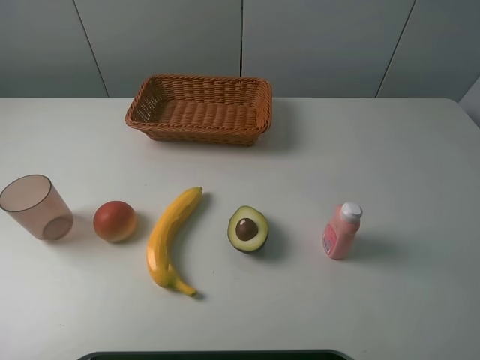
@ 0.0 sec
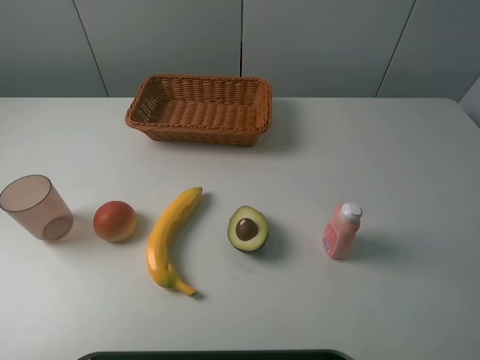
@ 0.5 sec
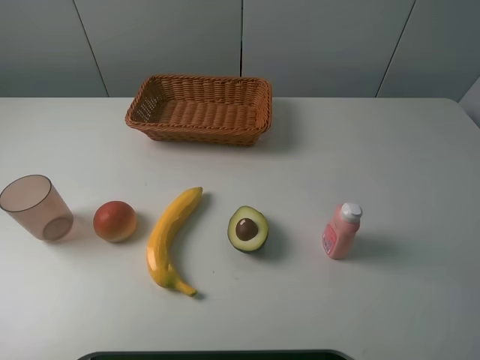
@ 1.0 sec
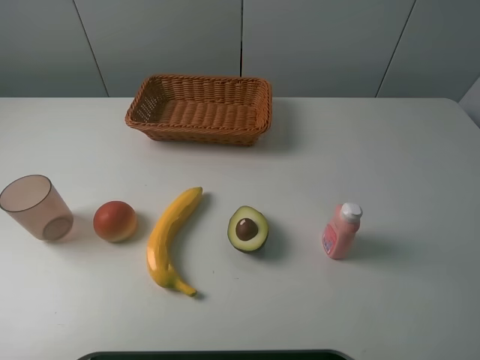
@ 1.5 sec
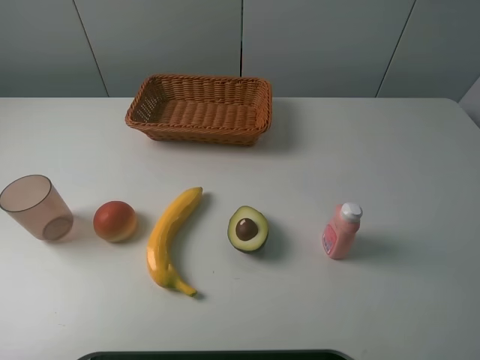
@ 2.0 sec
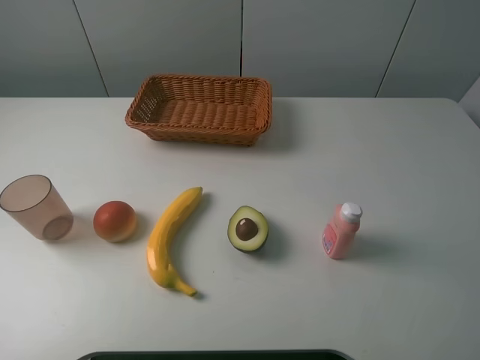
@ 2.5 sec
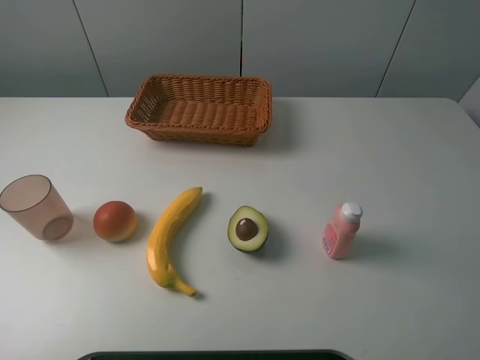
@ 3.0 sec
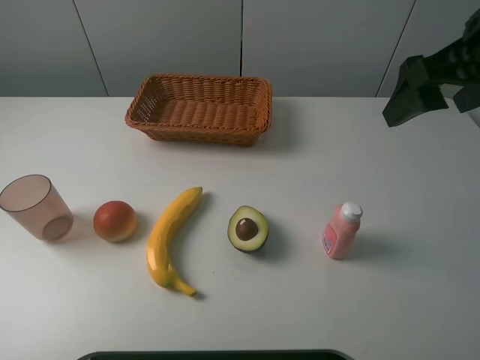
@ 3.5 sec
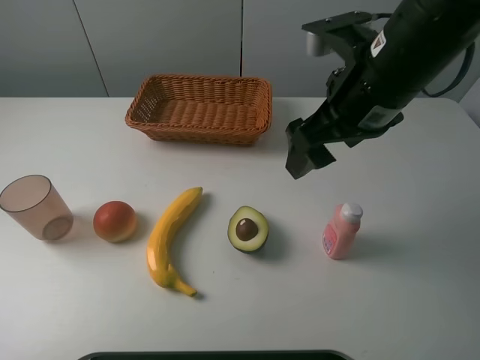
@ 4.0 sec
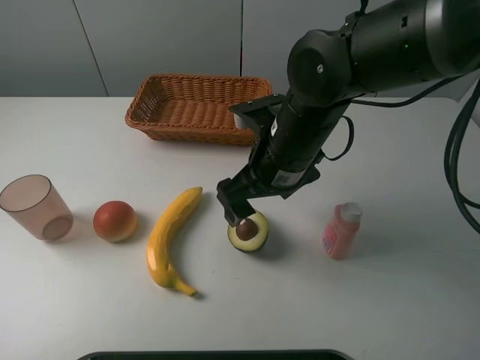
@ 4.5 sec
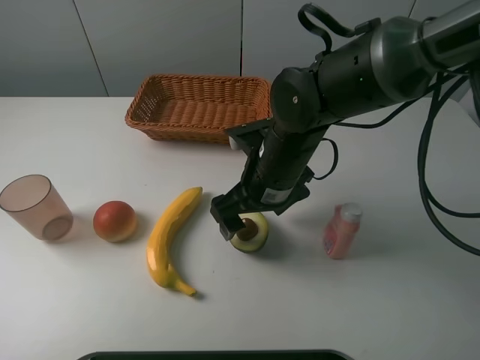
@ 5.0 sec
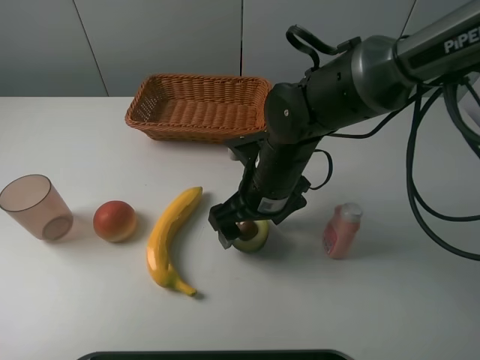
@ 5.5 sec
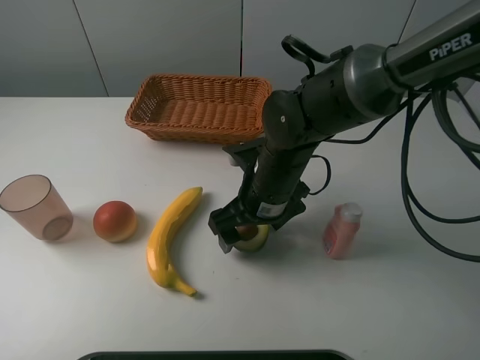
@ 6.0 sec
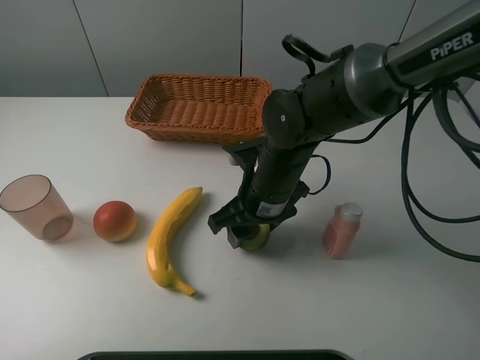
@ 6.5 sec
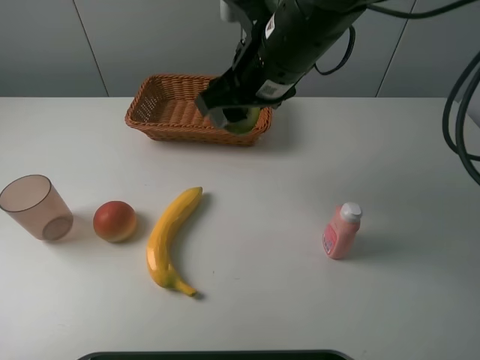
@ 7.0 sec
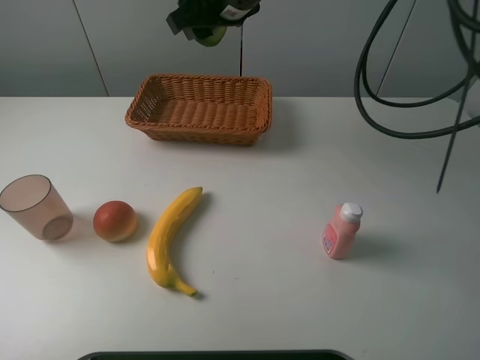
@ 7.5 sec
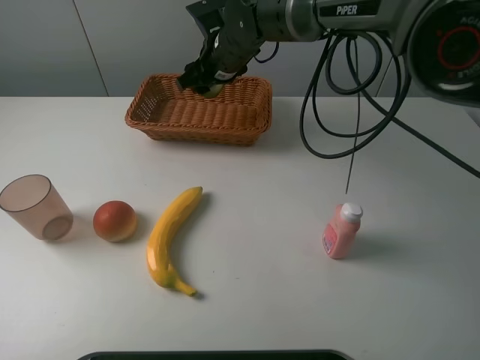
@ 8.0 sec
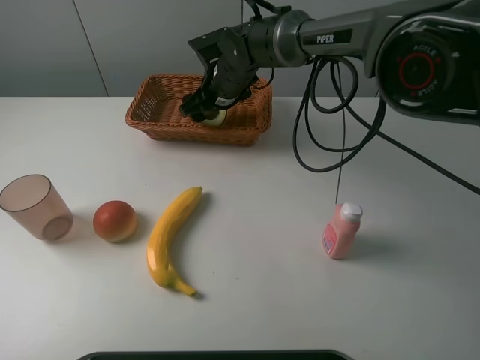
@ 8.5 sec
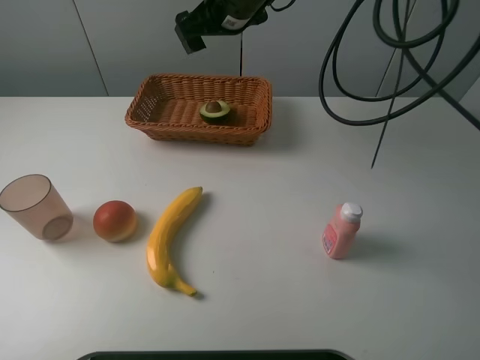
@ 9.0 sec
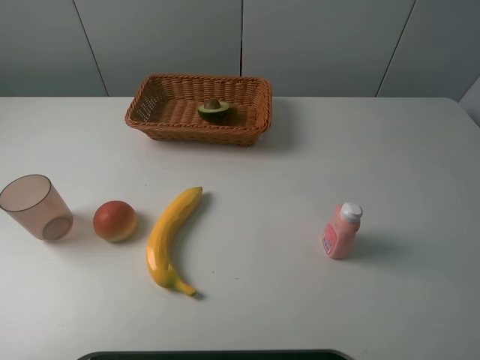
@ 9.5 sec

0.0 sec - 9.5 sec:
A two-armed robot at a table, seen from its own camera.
Task of the whole recording: randomly pick up an item from the table and put it in the basket.
Step, 0.0 sec - 6.0 sec: Grasp the avocado with the right gripper.
Step, 6.5 sec - 8.5 sec: Place the avocado into the basket with the right gripper.
0.0 sec - 2.0 sec: Both grippers stay put.
2.0 sec - 4.0 sec: The right gripper moves forward and to the left, about 30 cm.
4.0 sec - 5.5 sec: The right gripper is displaced downward and to the left by approximately 15 cm.
5.5 sec - 7.5 sec: The right gripper travels upward and forward by roughly 20 cm, and closes.
7.5 sec - 9.5 sec: The right gripper shifts approximately 25 cm upward and to the right, and opens its fingers.

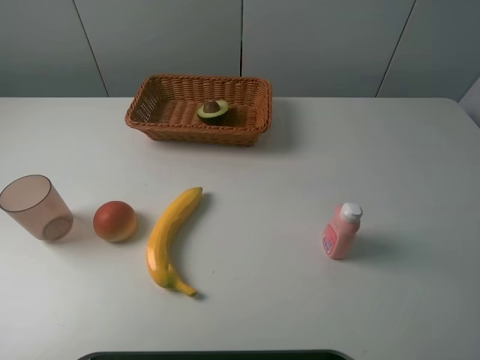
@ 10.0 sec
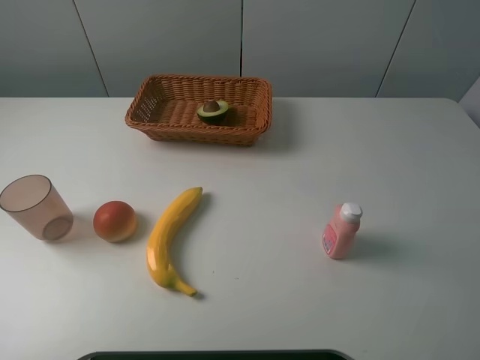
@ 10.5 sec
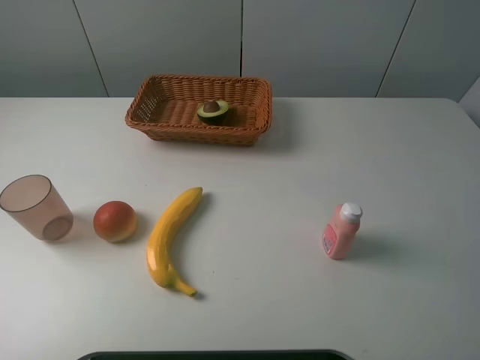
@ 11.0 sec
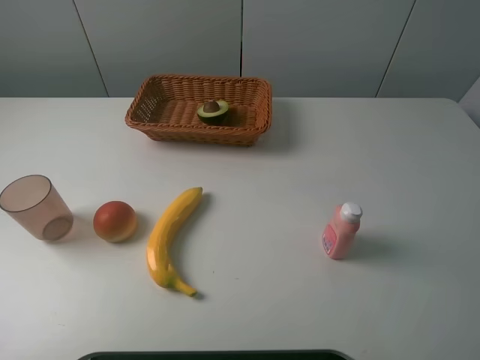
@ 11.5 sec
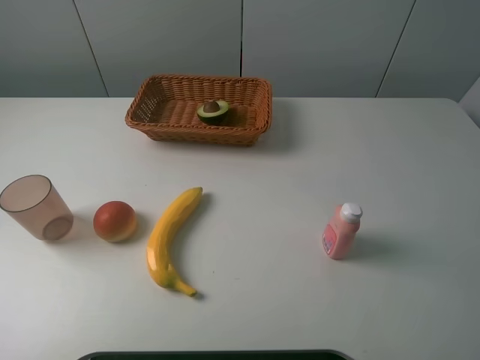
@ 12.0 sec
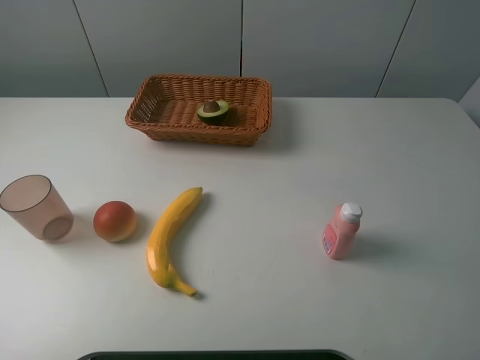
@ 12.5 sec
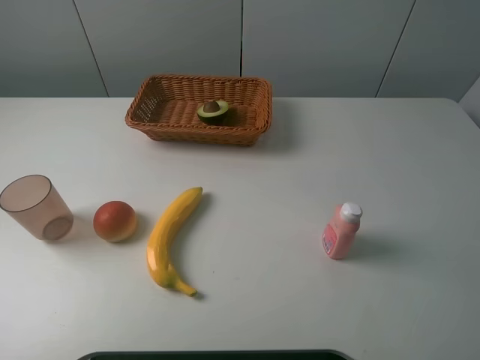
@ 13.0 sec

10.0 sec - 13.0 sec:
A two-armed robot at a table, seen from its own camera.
Task of the whole recording: randomly pick up an item from the table and put it in the basket.
11.5 sec - 13.0 sec: Both grippers stay about where they are.

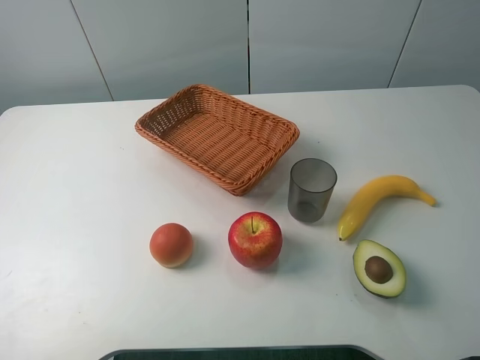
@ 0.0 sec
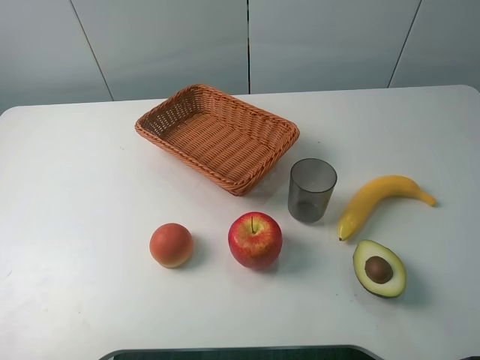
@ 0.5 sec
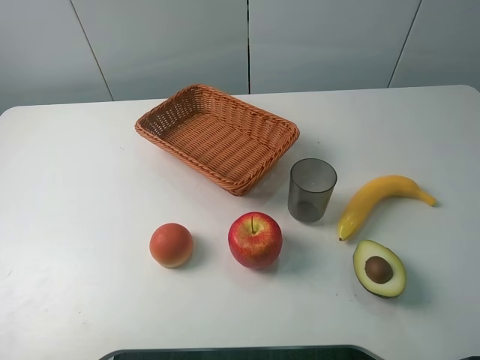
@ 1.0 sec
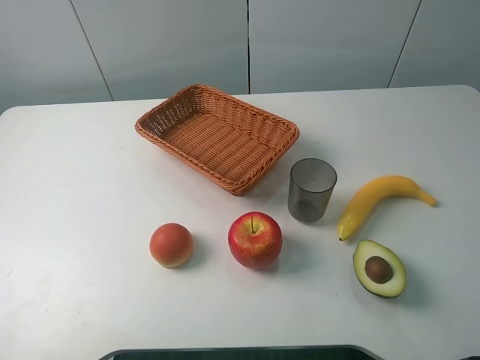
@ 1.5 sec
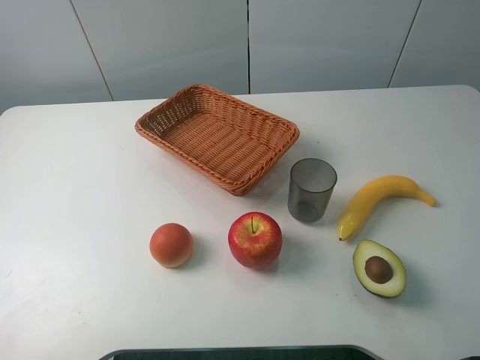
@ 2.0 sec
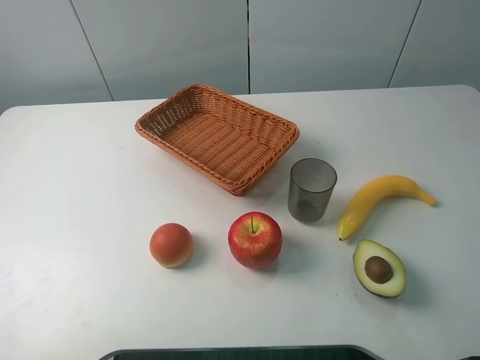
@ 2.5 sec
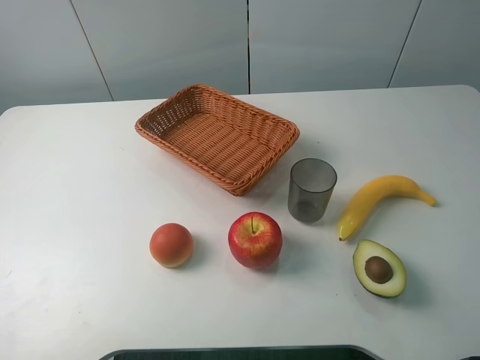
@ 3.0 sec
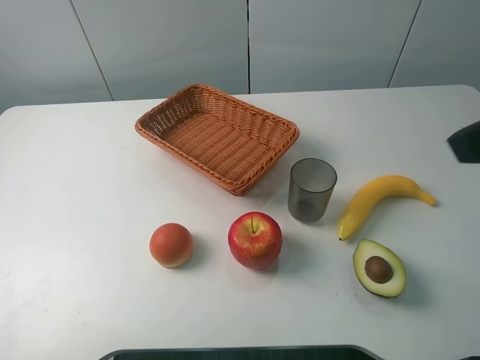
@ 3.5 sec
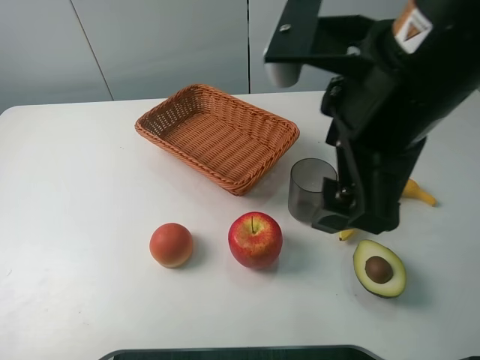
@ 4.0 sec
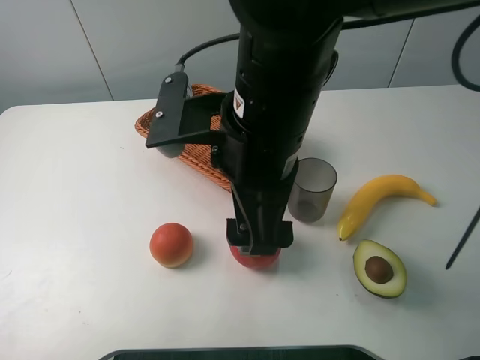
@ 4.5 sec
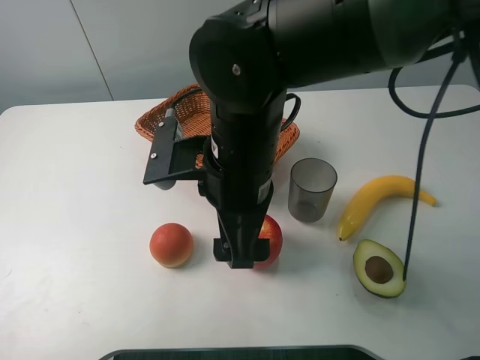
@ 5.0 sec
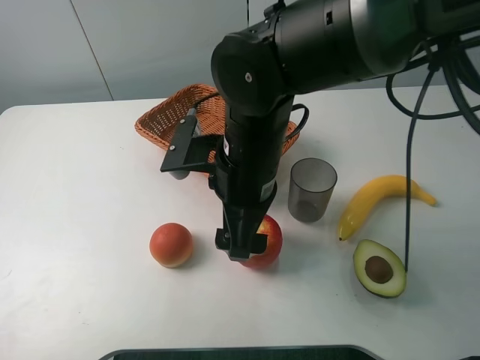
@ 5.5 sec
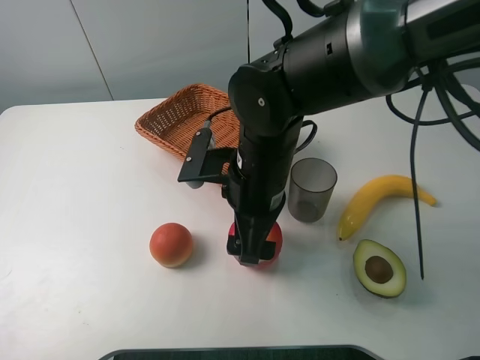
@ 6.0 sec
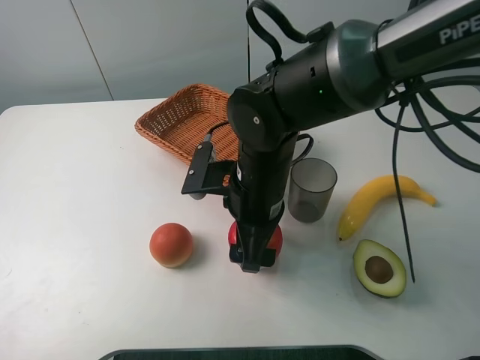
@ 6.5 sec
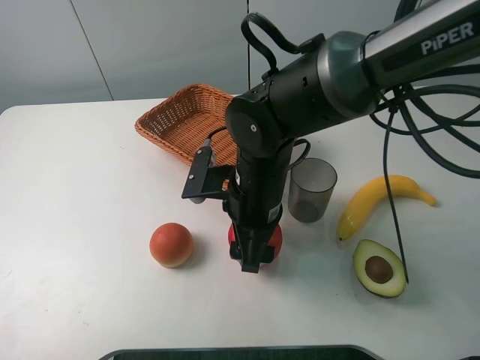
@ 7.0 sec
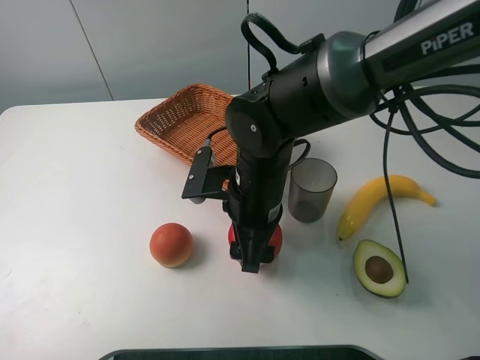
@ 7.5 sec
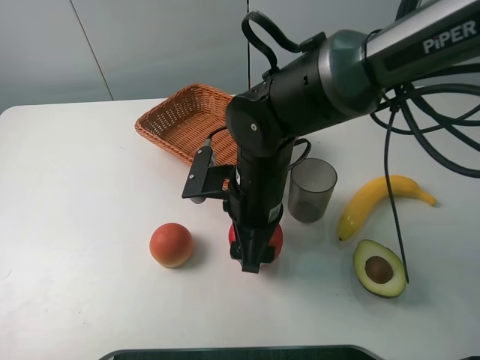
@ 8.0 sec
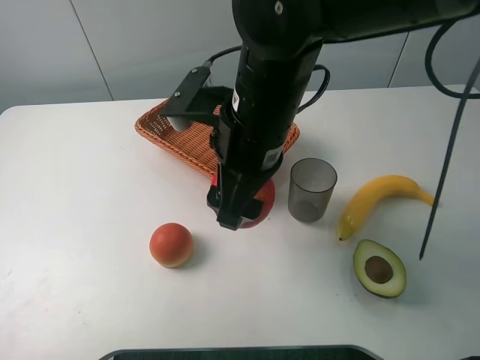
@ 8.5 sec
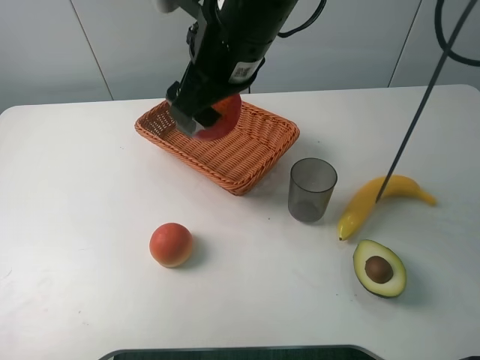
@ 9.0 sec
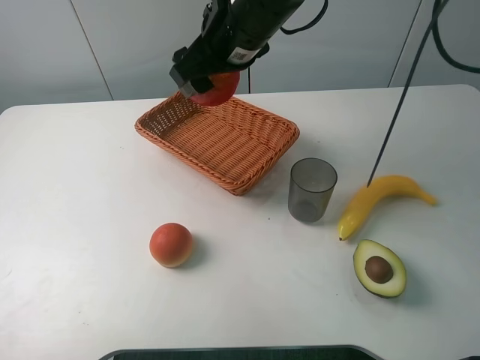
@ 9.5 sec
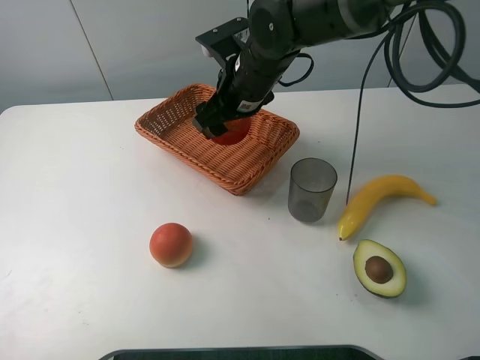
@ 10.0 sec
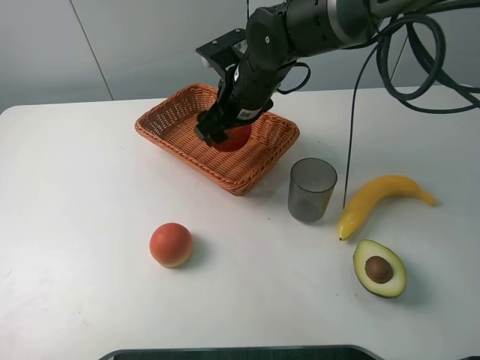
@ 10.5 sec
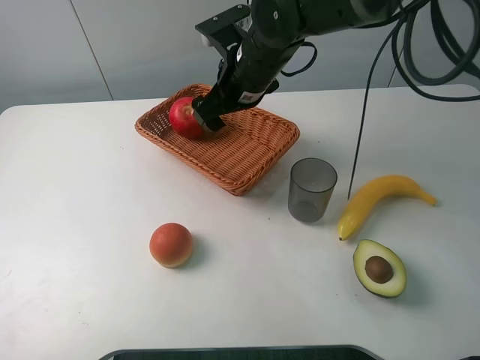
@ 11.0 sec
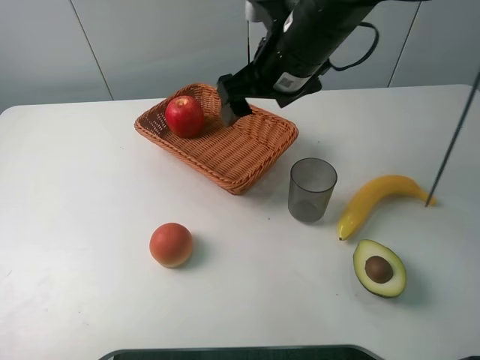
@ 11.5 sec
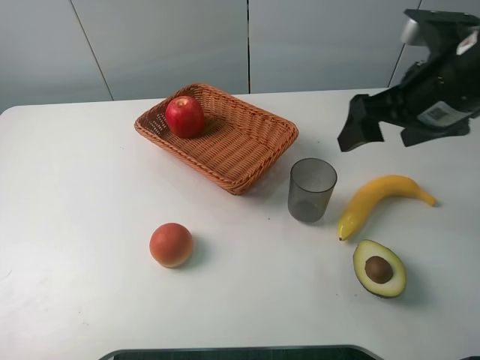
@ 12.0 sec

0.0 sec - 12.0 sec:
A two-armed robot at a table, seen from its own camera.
Task of the whole recording: randomly pick up an item from the table and put it in the basket.
Step, 0.0 sec - 7.5 sec: Grasp the apple with the right gripper.
Step, 8.0 sec - 10.5 sec: Place the apple into the basket with the right gripper.
0.0 sec - 2.0 sec: The two grippers keep their place.
2.0 sec - 4.0 sec: The right gripper is displaced to the left and forward by roughly 25 cm.
4.0 sec - 6.0 sec: The right gripper heads downward and to the left, covering about 15 cm.
6.0 sec - 8.0 sec: The right gripper closes.
8.0 sec - 10.0 sec: The right gripper shifts some 15 cm forward, and goes upward and returns, some 15 cm each way.
10.0 sec - 12.0 sec: The right gripper travels to the right and backward by roughly 25 cm, and opens its fingers.
